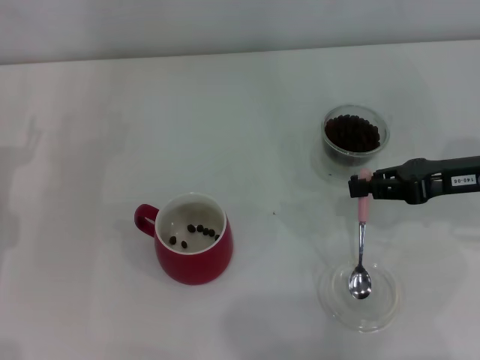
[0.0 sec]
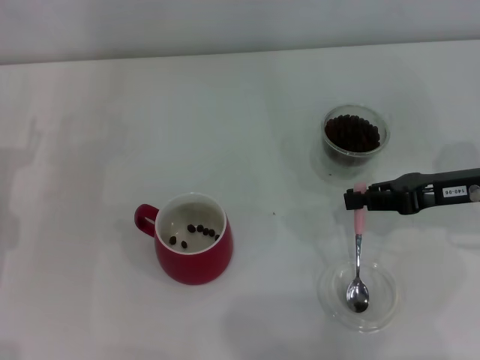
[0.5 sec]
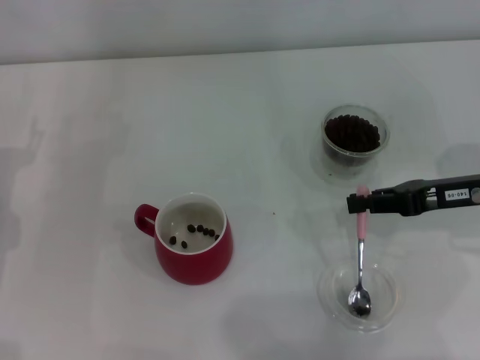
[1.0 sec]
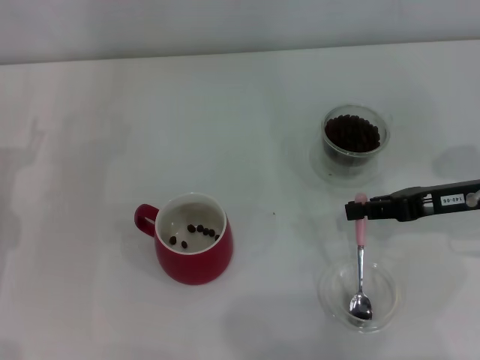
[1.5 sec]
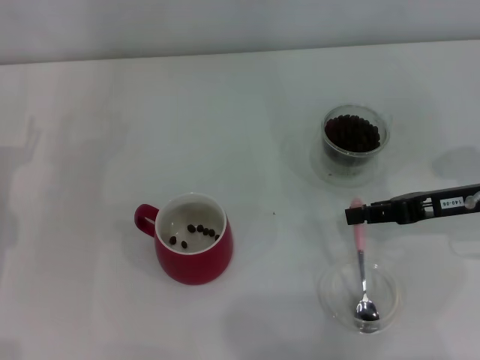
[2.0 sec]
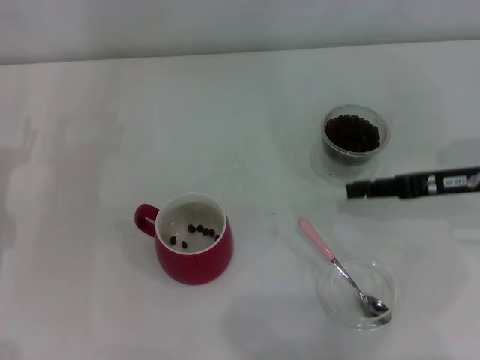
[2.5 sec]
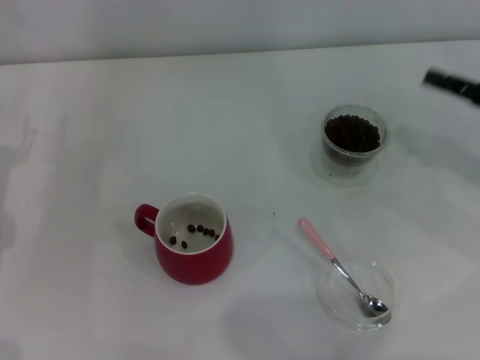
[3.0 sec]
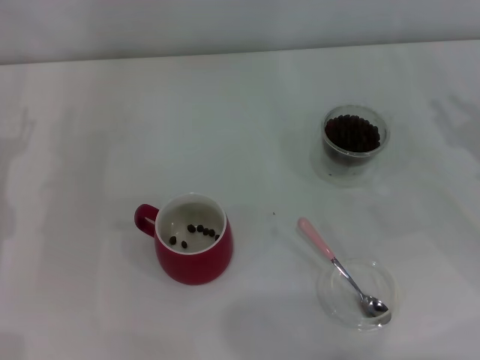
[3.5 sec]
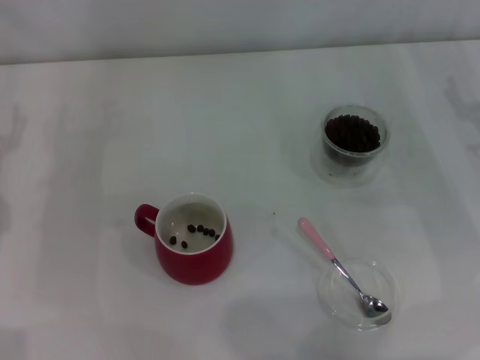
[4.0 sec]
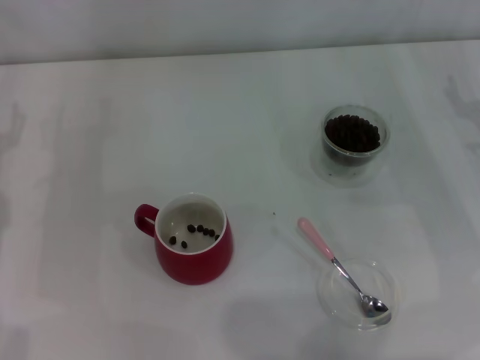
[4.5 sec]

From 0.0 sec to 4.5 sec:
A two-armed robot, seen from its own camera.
Task of the whole recording: Use a pink spoon to take out the coffee beans from the glass and pour them into the red cup.
Step, from 0.0 sec to 2.0 sec: Place the spoon back in its original place with the right gripper.
From 0.0 sec to 2.0 sec: There are only small adjustments of the grippers.
From 2.0 sec to 4.5 sec: The right gripper opens its fingers.

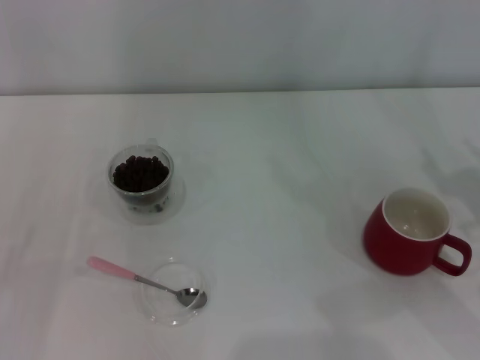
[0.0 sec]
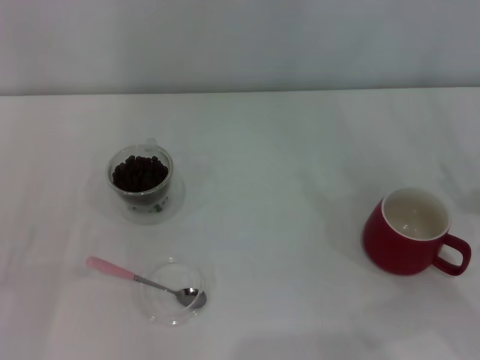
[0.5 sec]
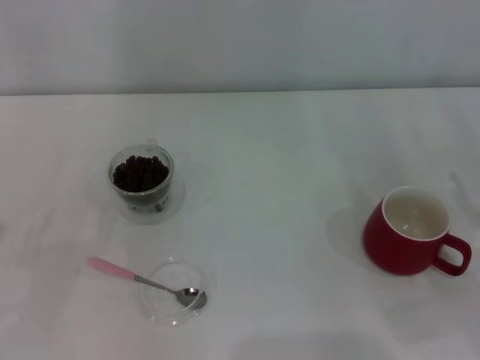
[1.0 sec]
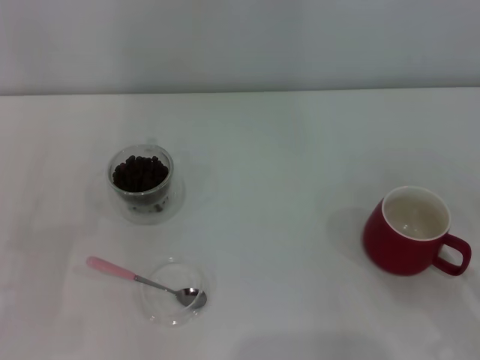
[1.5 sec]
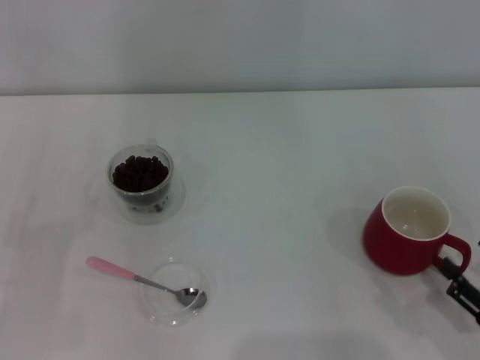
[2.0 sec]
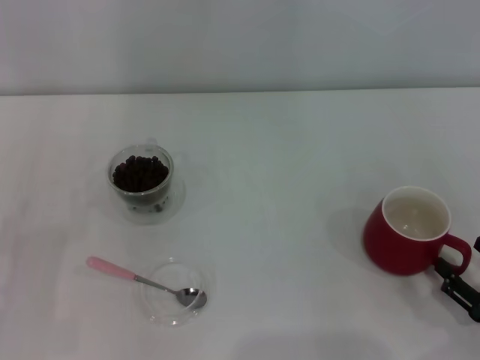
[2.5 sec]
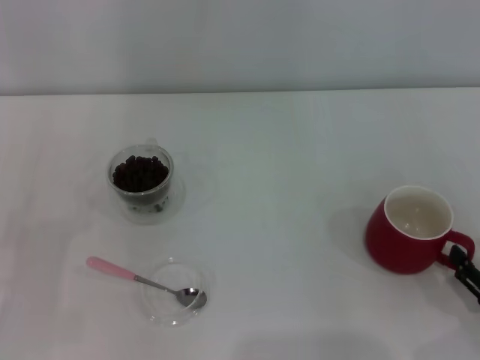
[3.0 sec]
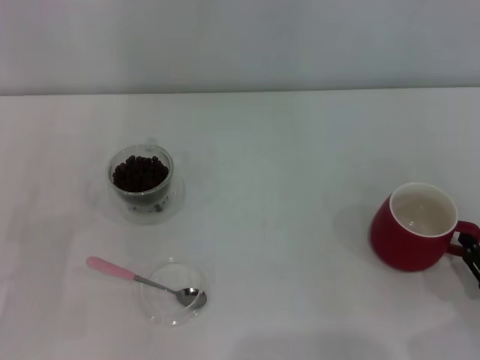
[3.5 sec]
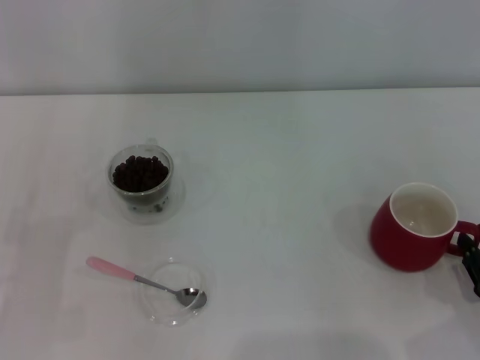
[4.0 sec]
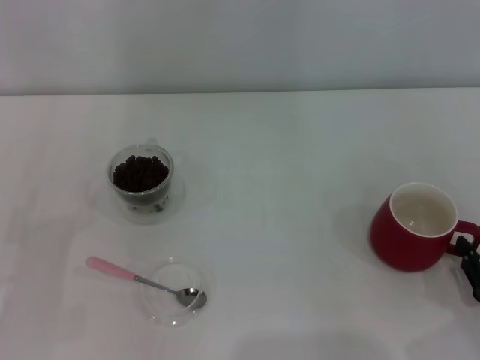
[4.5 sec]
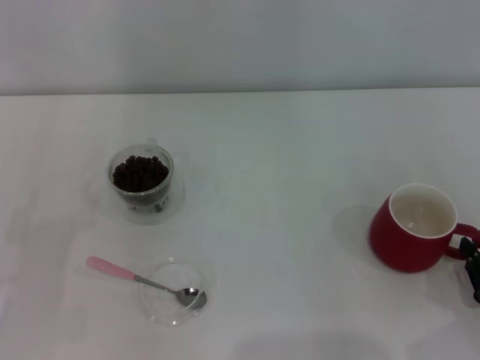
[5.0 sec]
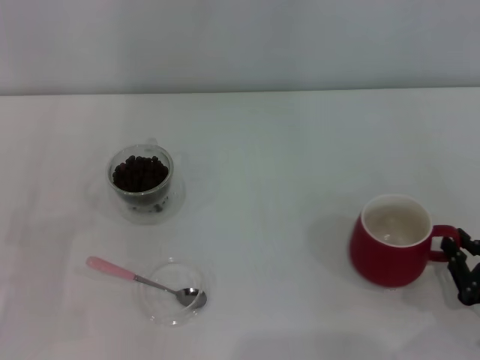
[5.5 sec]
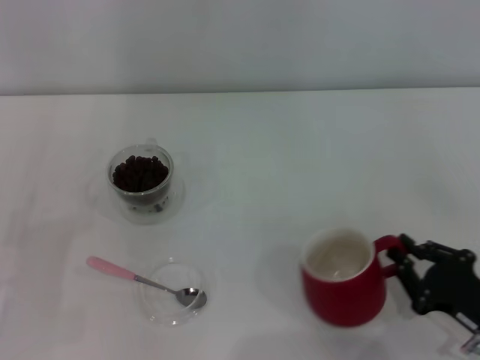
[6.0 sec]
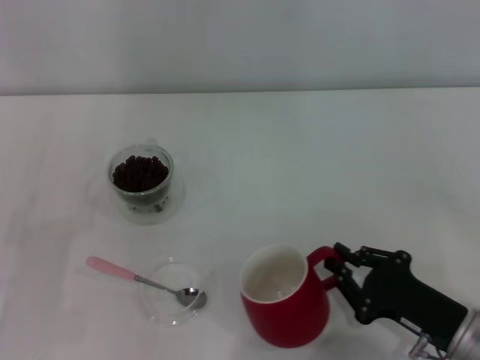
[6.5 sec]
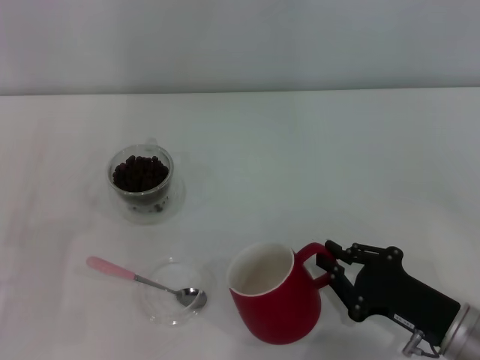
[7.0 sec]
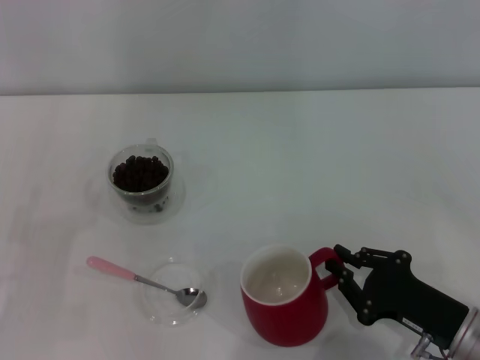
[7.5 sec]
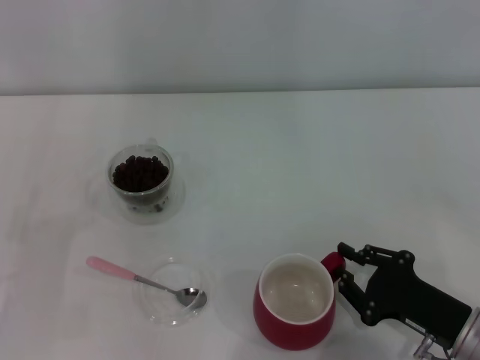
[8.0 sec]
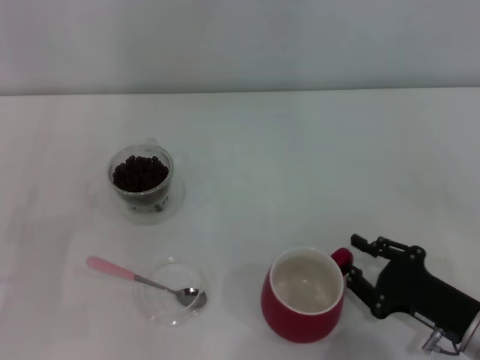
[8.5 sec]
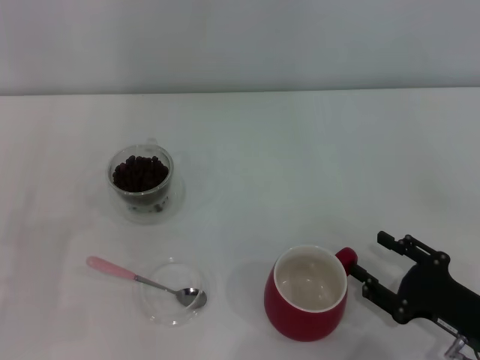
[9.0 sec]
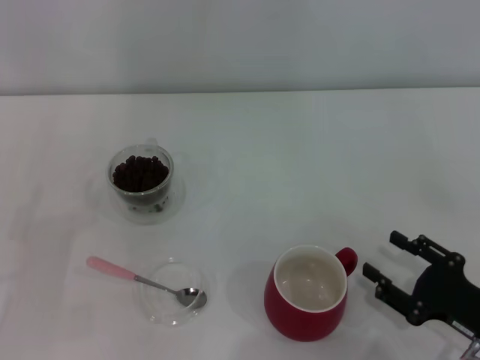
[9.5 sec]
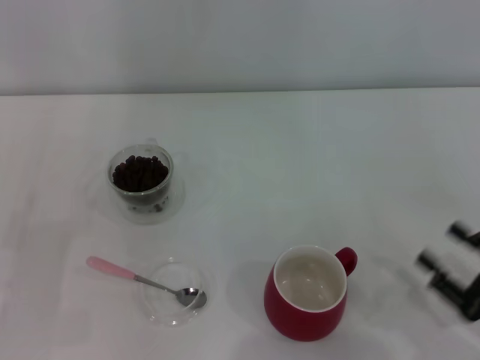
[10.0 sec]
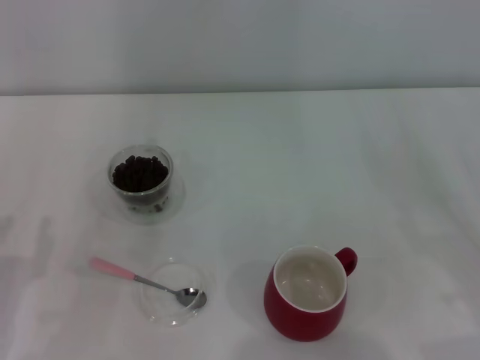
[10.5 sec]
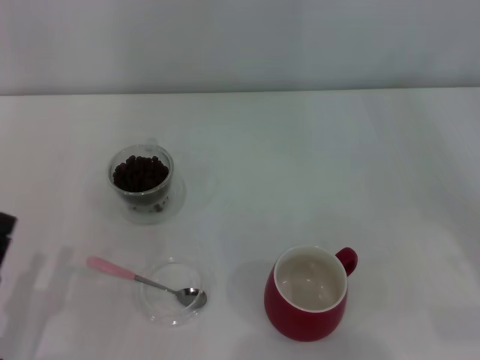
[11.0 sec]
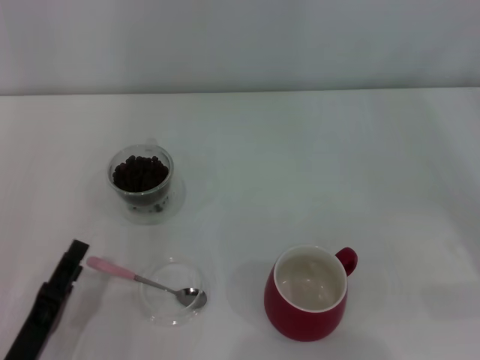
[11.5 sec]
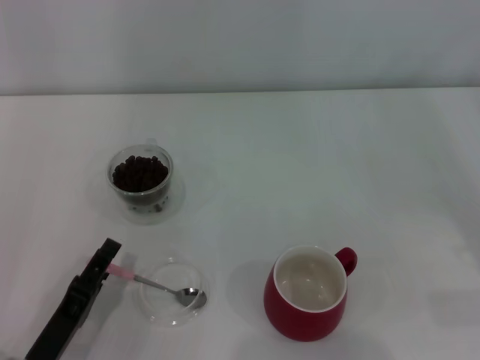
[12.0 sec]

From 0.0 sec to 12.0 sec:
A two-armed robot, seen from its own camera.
Task of the whole recording: Use a pink spoon to take out the coffee beans from the glass and pour them into the red cup.
Step, from 0.0 sec to 9.5 sec: Move the cup to the center of view with the left gripper.
From 0.0 sec to 2.0 sec: The right gripper goes about 15 cm backward and downward.
From 2.0 sec to 4.0 sec: The right gripper closes.
From 4.0 sec to 6.0 sec: The grippers make only small movements.
From 6.0 sec to 8.0 sec: The grippers move only a little.
From 8.0 sec to 10.0 sec: The right gripper is displaced to the right by about 5 cm, and opens.
From 10.0 sec to 12.0 sec: The right gripper goes about 15 cm to the right, upward and forward; the left gripper is displaced to the right, backward and downward by some 15 cm.

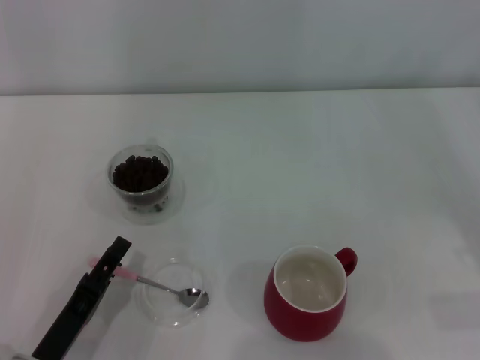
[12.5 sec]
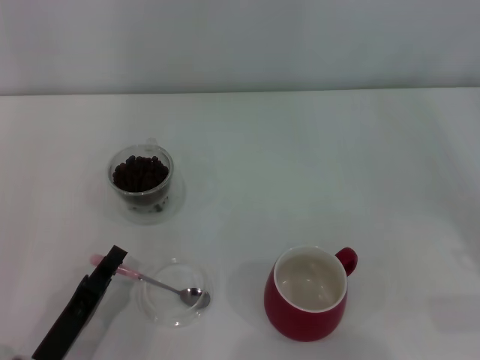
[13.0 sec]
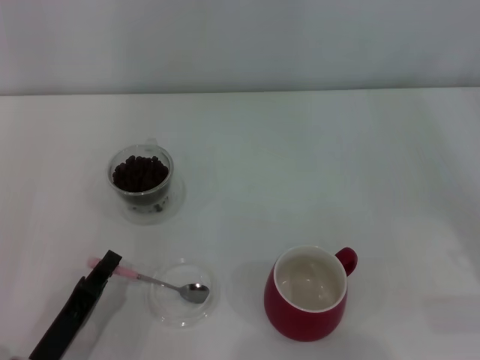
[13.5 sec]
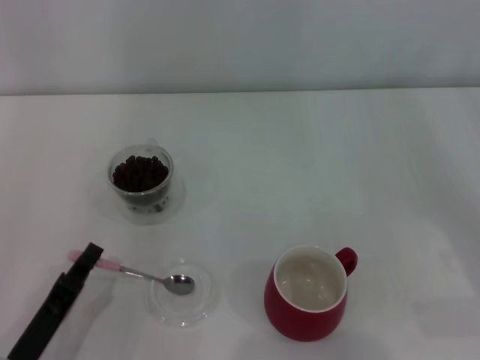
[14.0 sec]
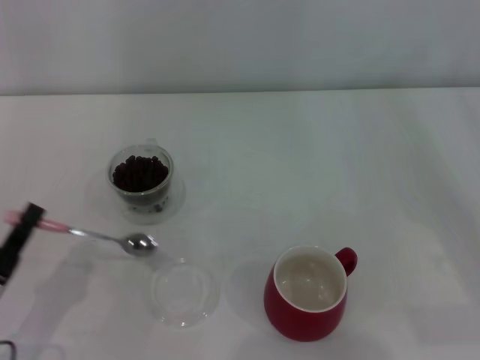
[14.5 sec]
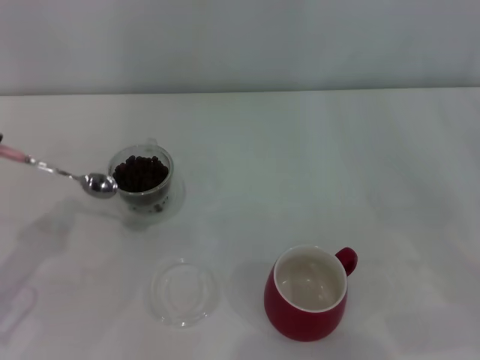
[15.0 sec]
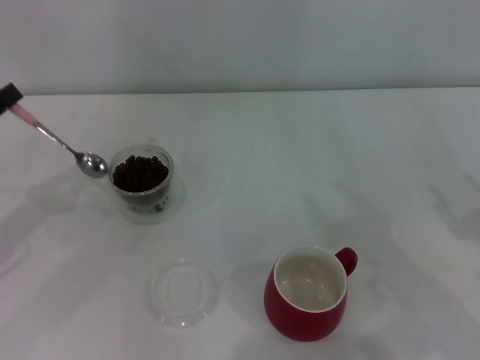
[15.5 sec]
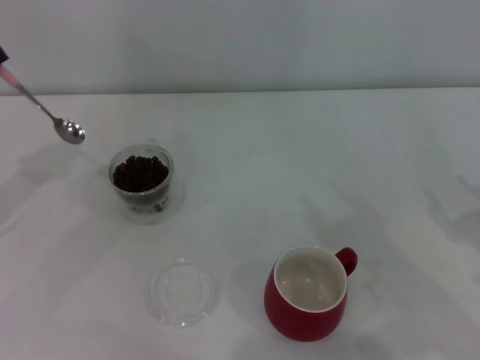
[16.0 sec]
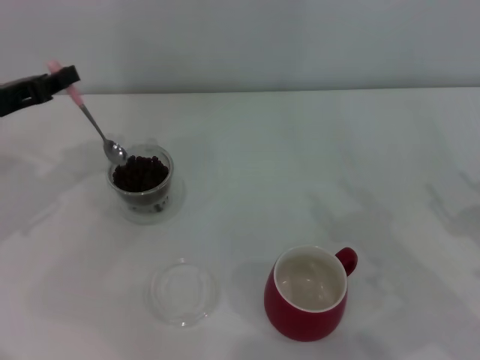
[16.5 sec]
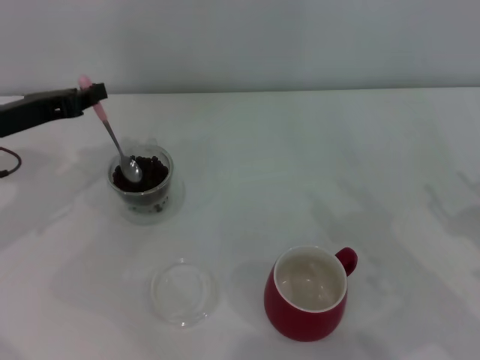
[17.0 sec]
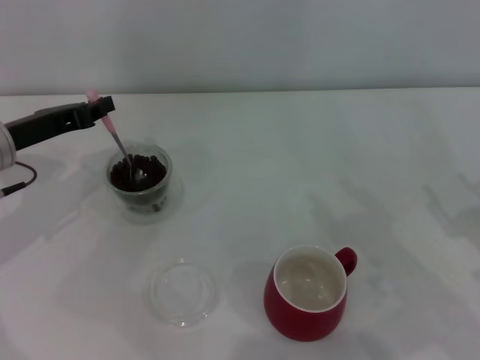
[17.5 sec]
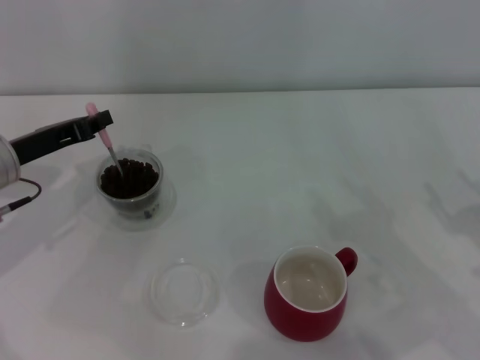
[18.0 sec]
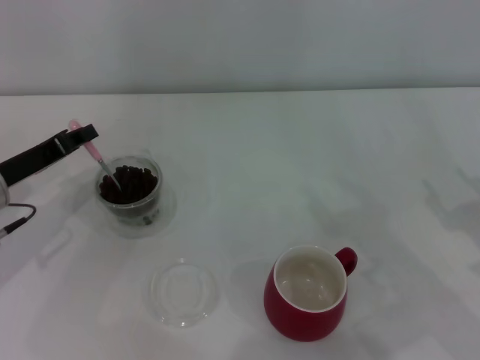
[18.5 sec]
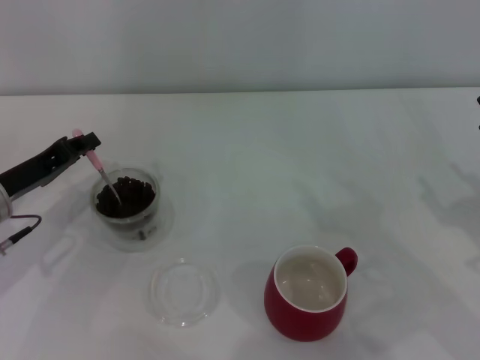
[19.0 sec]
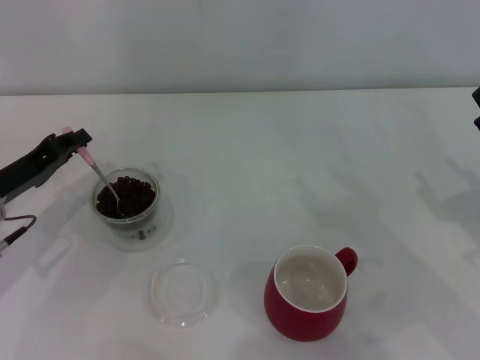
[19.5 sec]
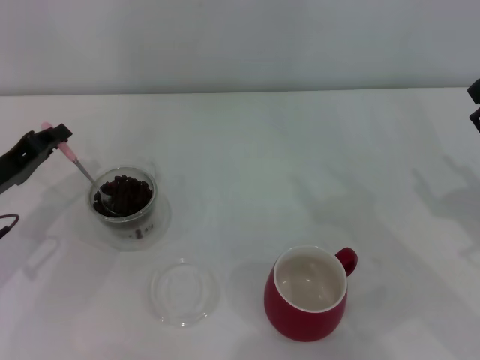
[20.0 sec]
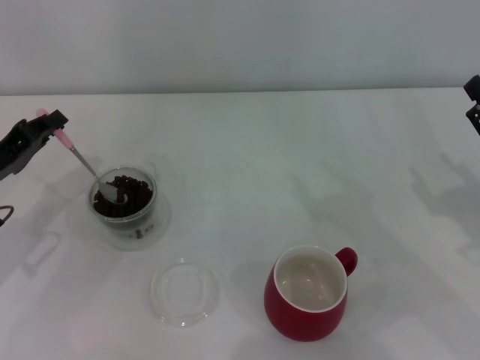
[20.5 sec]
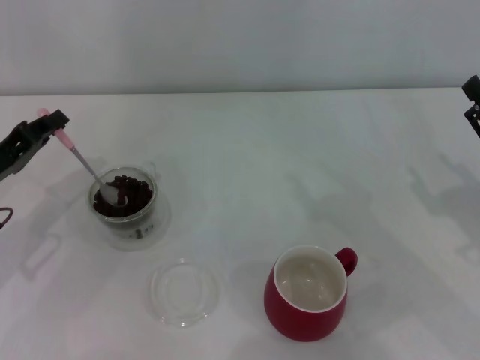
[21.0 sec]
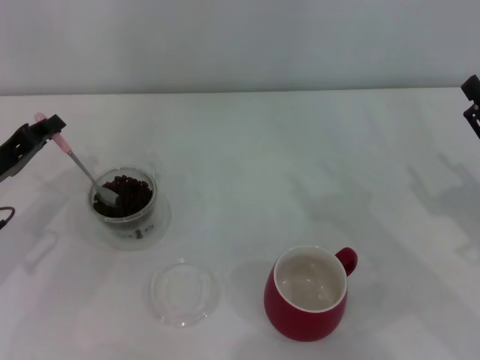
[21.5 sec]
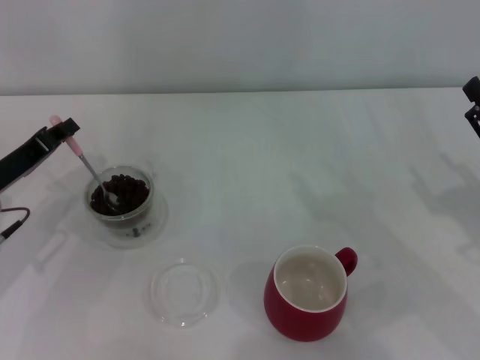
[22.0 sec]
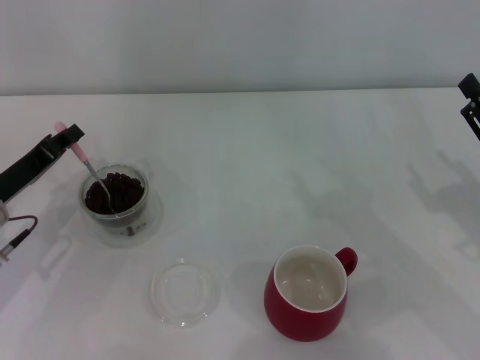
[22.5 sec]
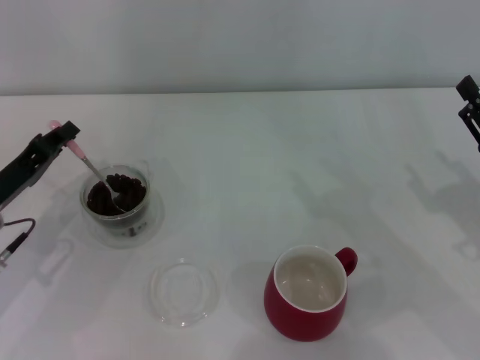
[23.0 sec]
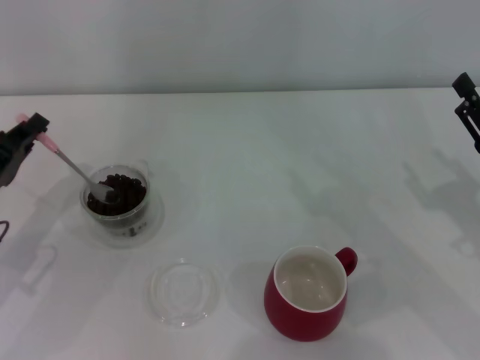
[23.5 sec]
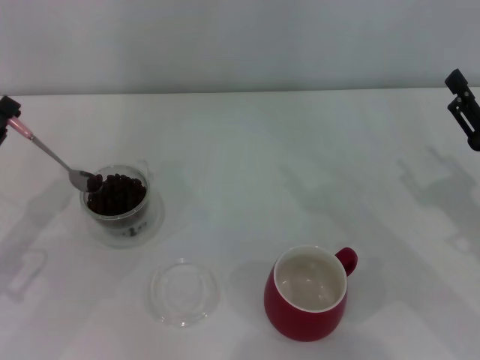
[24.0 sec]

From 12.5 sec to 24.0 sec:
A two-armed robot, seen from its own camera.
Task of the whole recording: Use a pink spoon to take out the coffee beans from the glass and pour them into the red cup.
From 12.5 sec to 14.5 sec: The left gripper moves to the left, approximately 5 cm, and closes up.
From 14.5 sec to 16.5 sec: The left gripper goes about 25 cm forward and upward.
From 16.5 sec to 18.5 sec: The left gripper goes approximately 5 cm downward.
From 18.5 sec to 22.0 sec: The grippers move only a little.
From 22.0 sec to 24.0 sec: The left gripper travels backward by roughly 5 cm.
